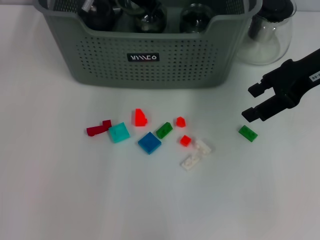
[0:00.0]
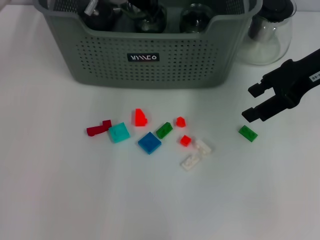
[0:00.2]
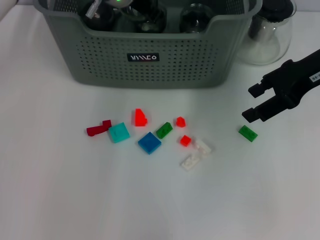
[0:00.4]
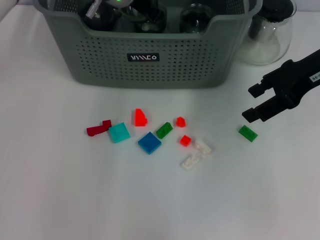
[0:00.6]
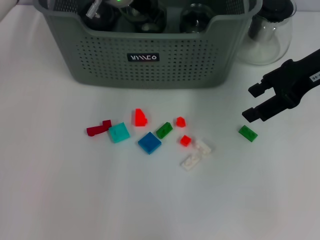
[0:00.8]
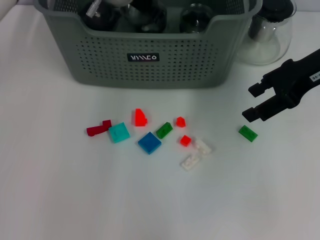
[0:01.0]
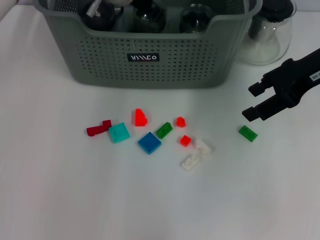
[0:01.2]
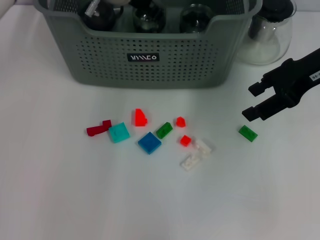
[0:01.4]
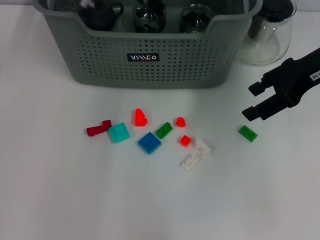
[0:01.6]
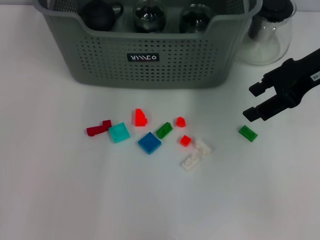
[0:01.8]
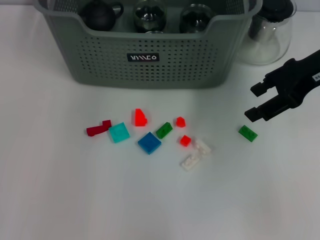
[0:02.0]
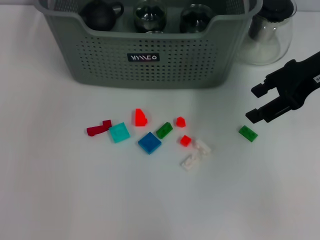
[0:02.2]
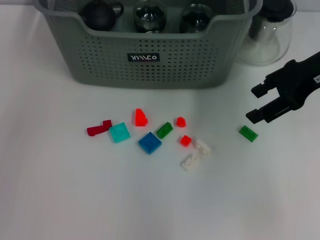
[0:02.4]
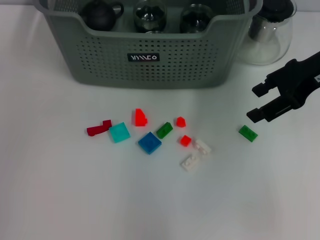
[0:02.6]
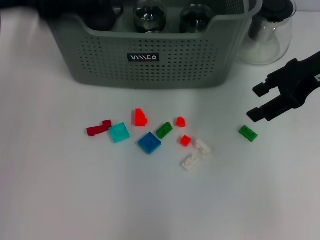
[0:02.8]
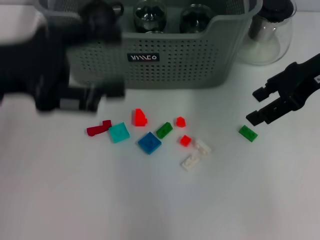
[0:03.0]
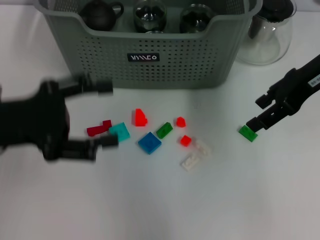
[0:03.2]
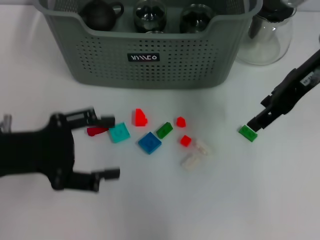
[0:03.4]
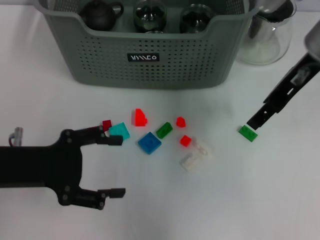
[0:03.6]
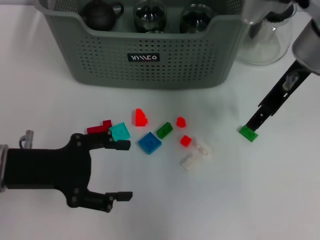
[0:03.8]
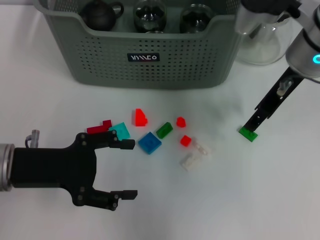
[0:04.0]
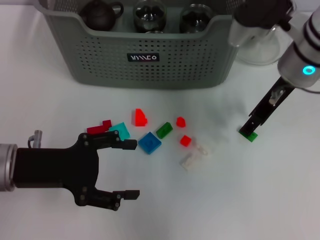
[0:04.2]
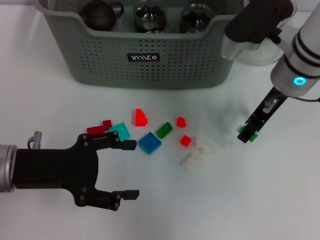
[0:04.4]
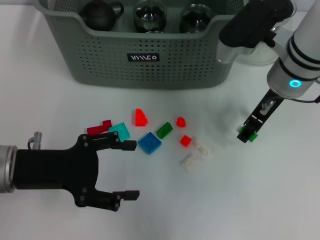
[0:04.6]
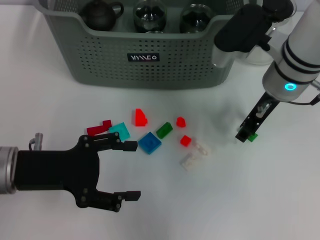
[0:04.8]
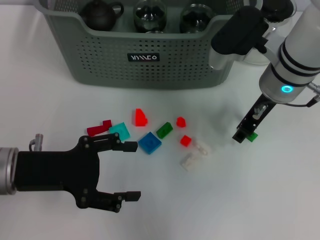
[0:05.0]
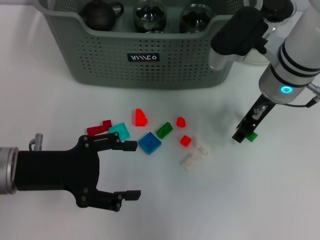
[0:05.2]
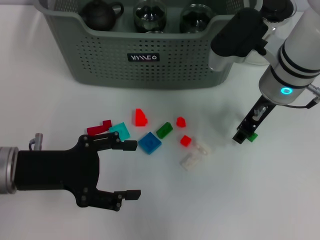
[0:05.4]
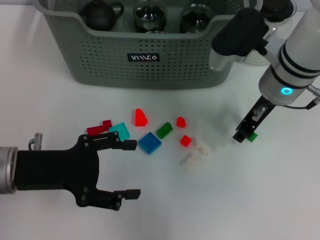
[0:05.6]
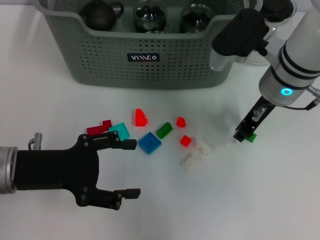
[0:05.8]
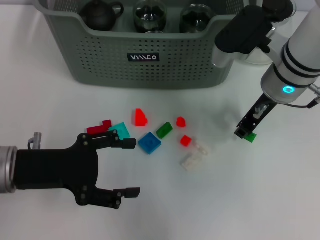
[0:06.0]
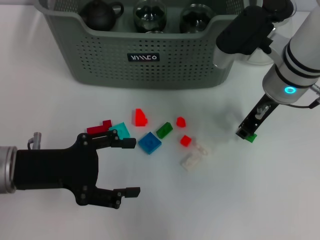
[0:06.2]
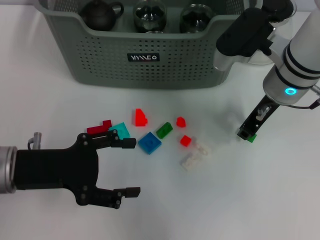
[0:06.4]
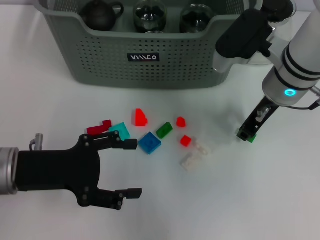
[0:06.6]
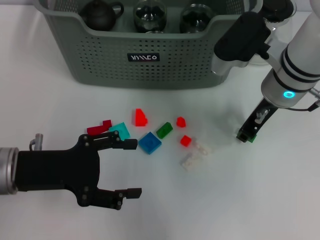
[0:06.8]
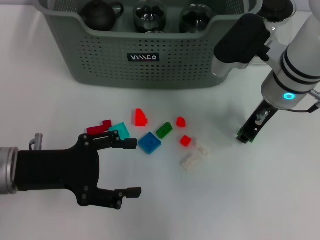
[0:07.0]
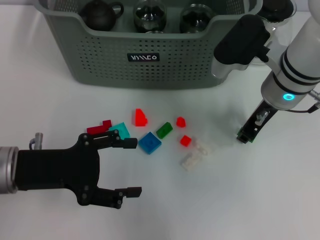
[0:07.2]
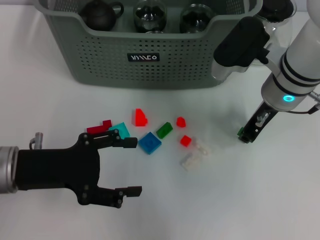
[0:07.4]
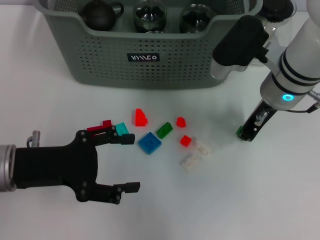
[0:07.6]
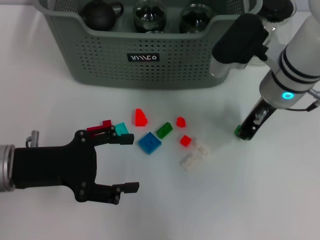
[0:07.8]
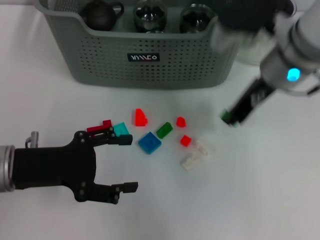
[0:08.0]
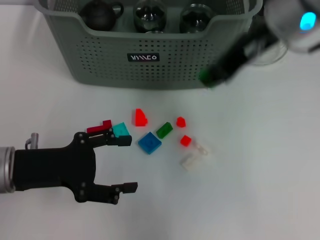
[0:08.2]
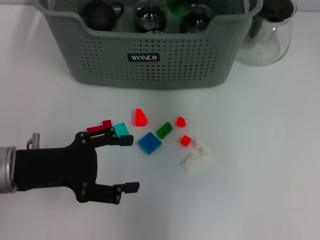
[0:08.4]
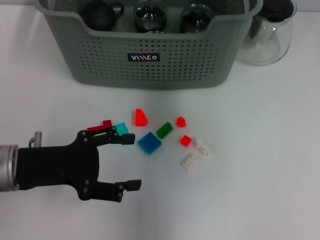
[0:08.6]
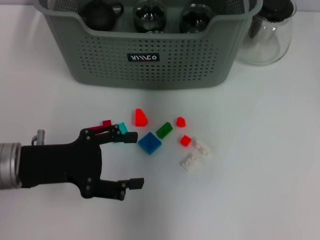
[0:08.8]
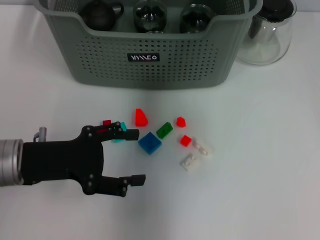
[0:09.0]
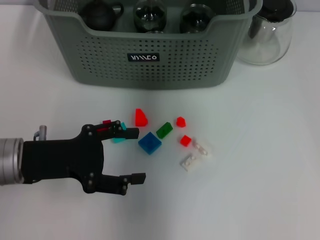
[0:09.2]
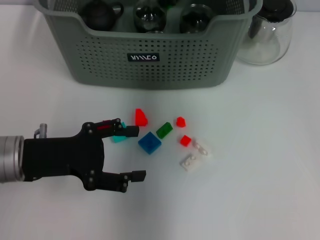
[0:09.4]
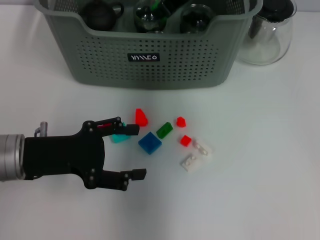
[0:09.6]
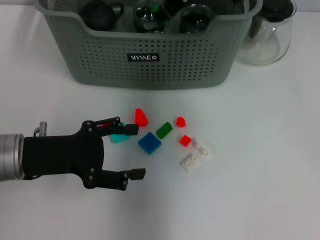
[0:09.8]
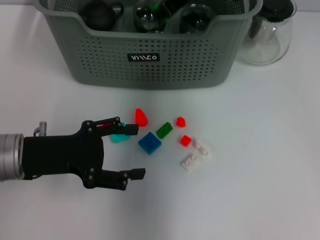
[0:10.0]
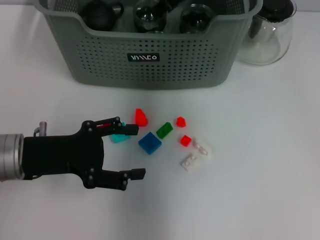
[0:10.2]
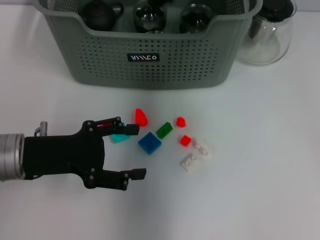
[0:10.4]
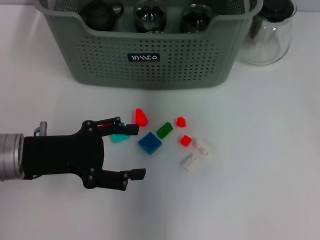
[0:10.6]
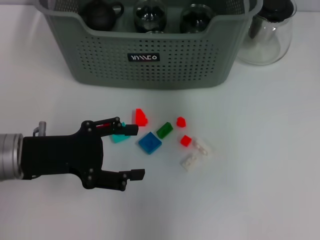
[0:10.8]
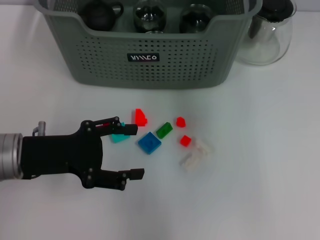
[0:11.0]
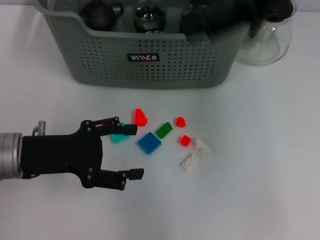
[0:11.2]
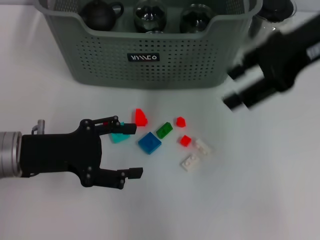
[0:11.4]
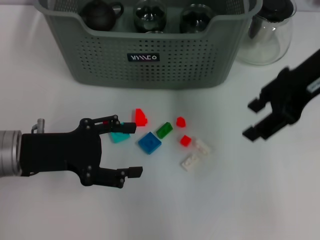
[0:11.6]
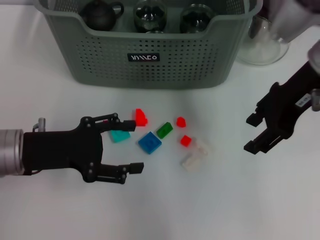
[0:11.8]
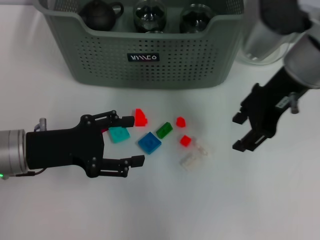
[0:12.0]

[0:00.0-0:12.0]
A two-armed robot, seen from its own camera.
Task of the whole recording: pick up the teacup on the table and place it into the storage bin, pick up the block on the table and place it into the storage bin.
Step, 0:01.4 to 0:07.4: Grasp the green block with right gripper.
Step, 0:07.6 to 0:10.2: Place the green block in the storage box with right gripper.
0:01.6 to 0:03.0: The left gripper goes about 25 cm backward and to the left, and opens.
0:03.0 to 0:04.4: The left gripper heads downward, covering some 10 cm. The right gripper goes about 10 cm to the left and downward.
0:04.4 to 0:06.0: The right gripper closes up.
0:06.0 to 0:07.6: Both grippers stay about where they are.
0:07.6 to 0:09.0: The right gripper goes about 20 cm upward and forward.
0:09.0 to 0:10.4: The right gripper moves about 5 cm, and opens.
0:10.4 to 0:12.0: The right gripper is displaced backward, to the right and downward by approximately 15 cm.

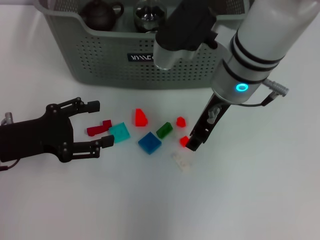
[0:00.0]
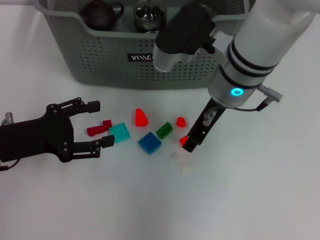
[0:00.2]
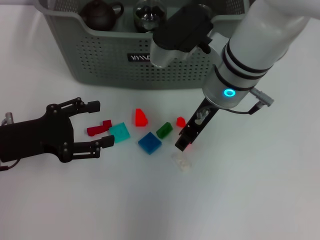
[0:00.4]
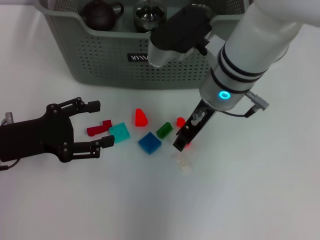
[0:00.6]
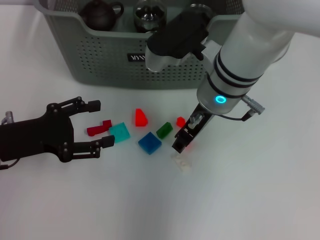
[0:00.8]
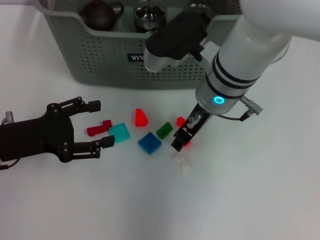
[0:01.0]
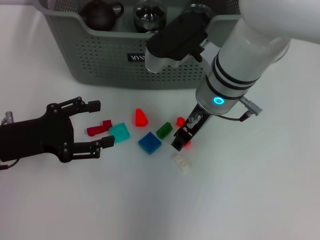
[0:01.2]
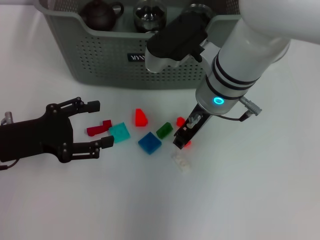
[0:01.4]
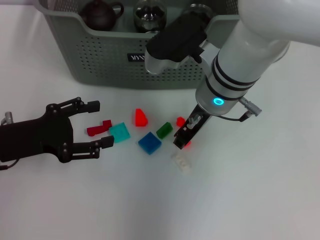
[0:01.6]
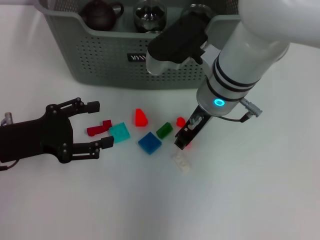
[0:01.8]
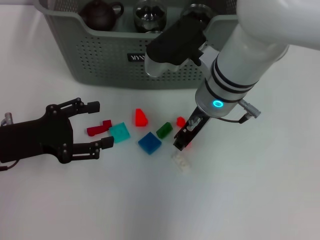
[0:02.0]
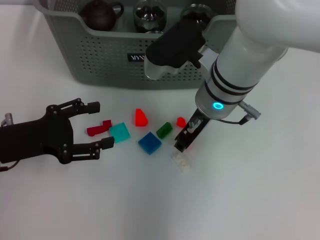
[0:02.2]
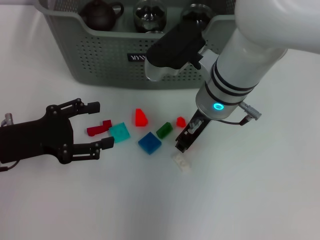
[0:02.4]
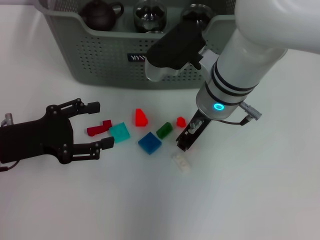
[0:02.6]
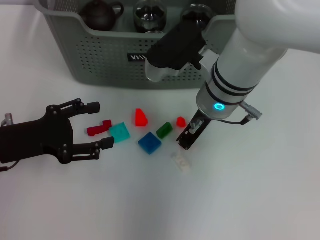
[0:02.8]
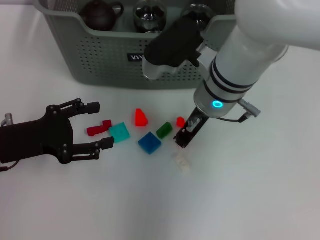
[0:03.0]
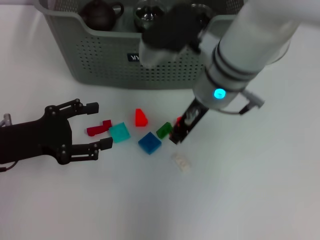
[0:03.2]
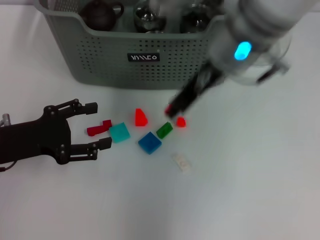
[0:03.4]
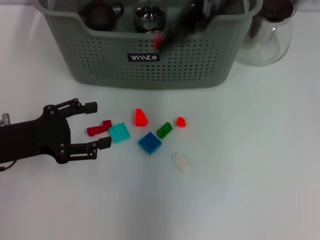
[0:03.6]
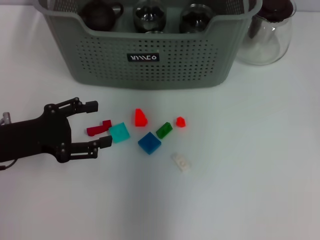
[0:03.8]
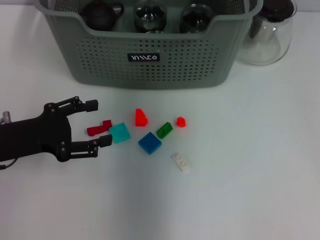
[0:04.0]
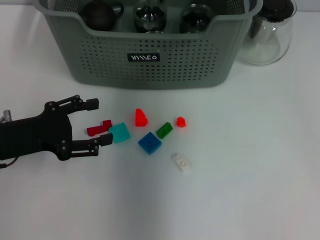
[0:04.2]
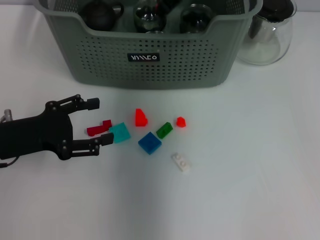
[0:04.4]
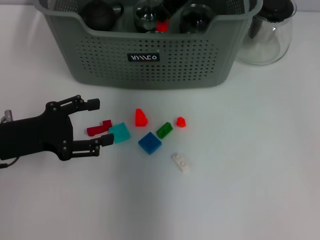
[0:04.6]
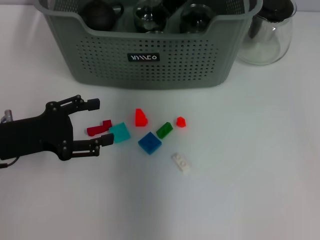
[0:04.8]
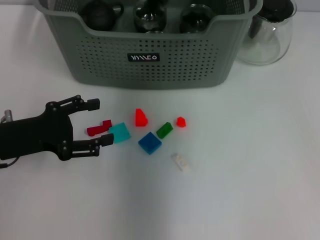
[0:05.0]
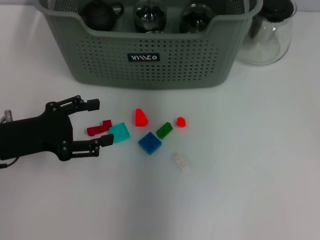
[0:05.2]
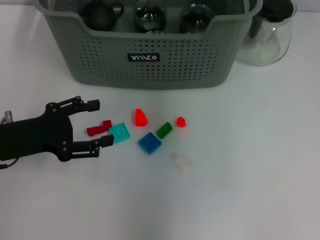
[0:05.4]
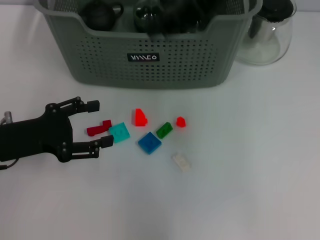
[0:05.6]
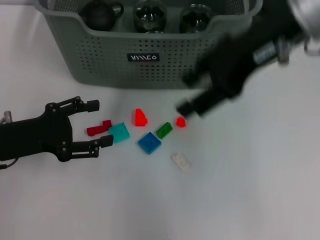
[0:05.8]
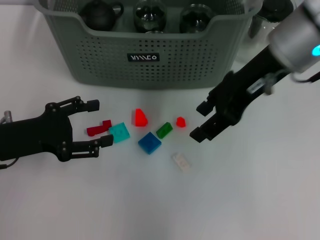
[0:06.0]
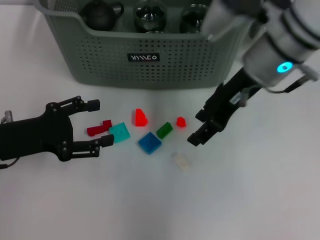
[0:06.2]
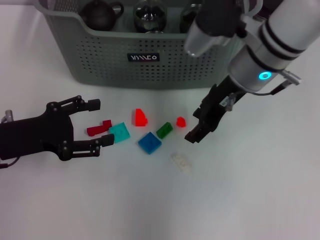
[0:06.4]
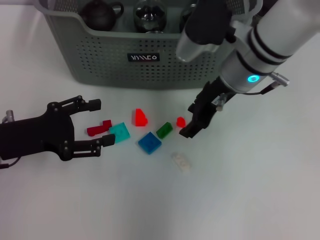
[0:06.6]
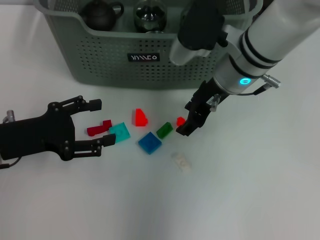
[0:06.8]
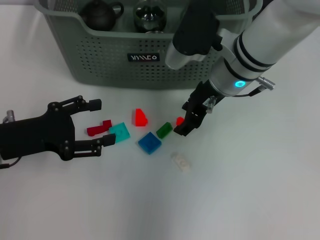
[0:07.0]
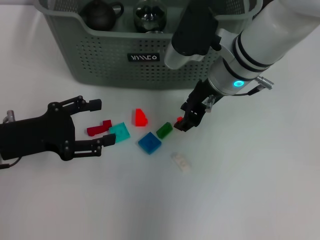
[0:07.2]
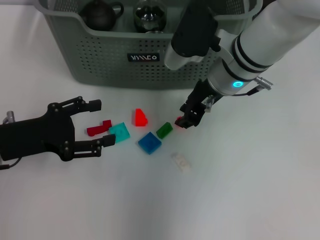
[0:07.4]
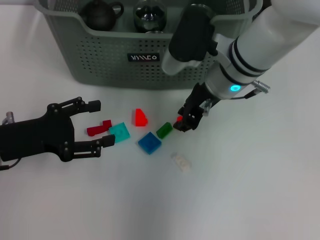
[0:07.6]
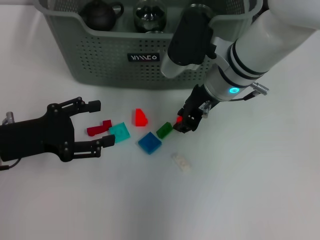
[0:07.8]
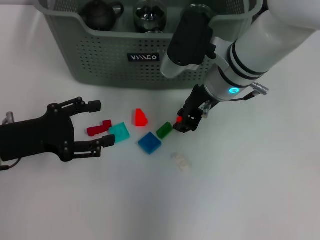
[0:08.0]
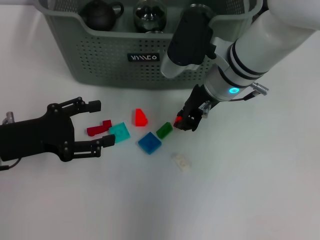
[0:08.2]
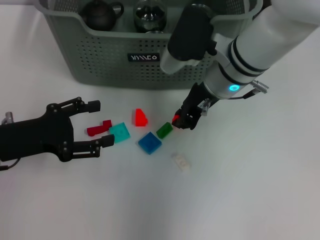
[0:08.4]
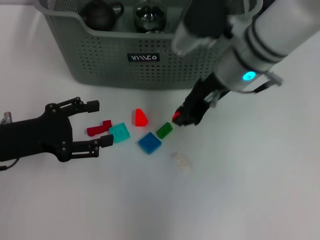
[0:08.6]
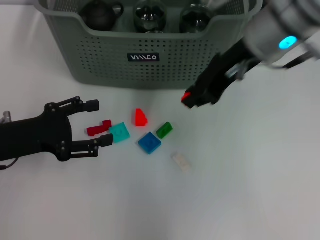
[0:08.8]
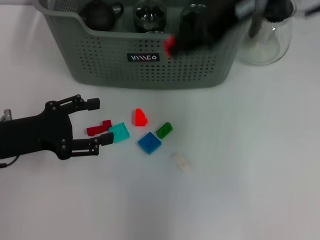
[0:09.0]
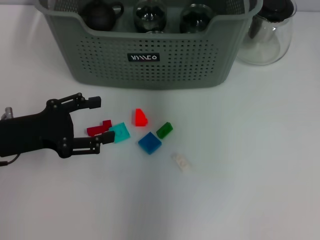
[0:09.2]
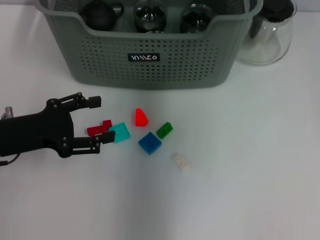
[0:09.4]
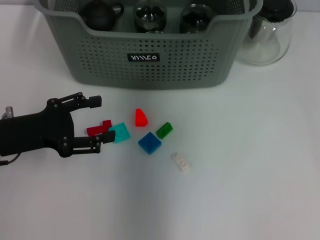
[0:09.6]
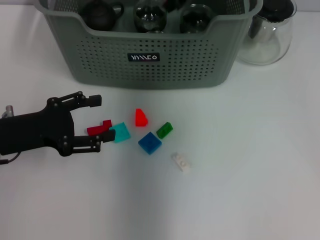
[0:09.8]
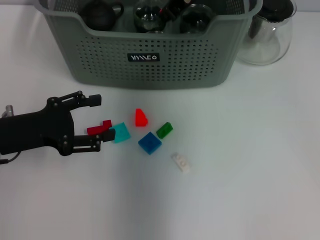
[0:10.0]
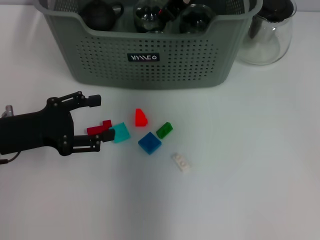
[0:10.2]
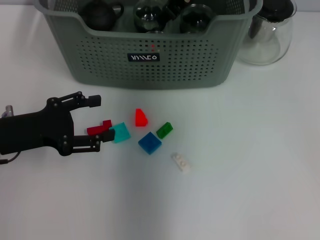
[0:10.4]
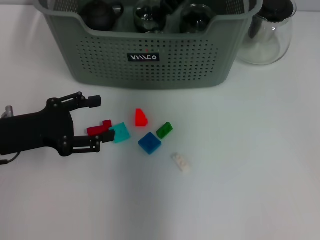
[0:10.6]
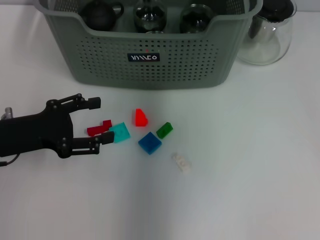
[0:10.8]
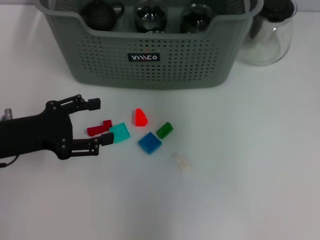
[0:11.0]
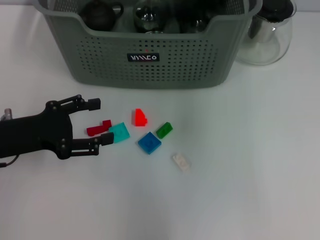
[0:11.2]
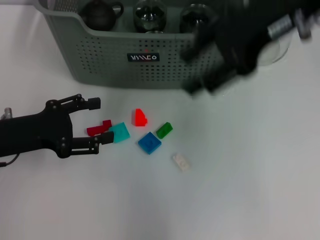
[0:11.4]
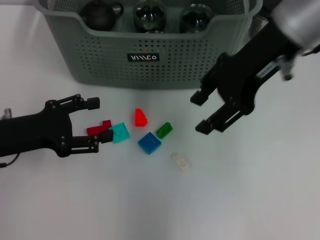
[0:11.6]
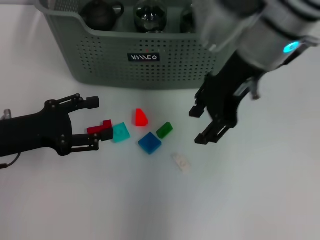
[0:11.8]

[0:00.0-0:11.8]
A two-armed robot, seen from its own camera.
Task of the whole recording: pick up the teacup on the table and place it into the storage bin, pick up the block on the table and place it into the storage bin.
Step, 0:00.0 to 0:02.6: Grasp the orange block with right gripper.
Step, 0:02.8 to 0:04.6: Place the orange block in the storage box with right gripper.
Step, 0:05.0 to 0:08.2: Grasp the orange block with right gripper.
Step, 0:08.4 to 0:10.2: Place the orange block in the storage box with right gripper.
0:00.0 to 0:01.4: The grippers make only small movements.
0:01.4 to 0:03.0: Neither gripper changes place.
0:03.0 to 0:04.4: The right gripper heads upward and forward, covering approximately 15 cm.
0:04.4 to 0:06.0: The right gripper heads backward and to the right, covering some 15 cm, and opens its fingers.
0:06.0 to 0:07.4: The right gripper moves downward and to the left, roughly 10 cm.
0:07.4 to 0:08.8: The right gripper moves upward, some 10 cm, and closes up.
0:08.8 to 0:10.4: The right gripper heads forward and to the left, covering about 10 cm, and goes upward and returns, approximately 15 cm each way.
0:10.4 to 0:11.8: The right gripper heads backward, covering some 10 cm, and opens up.
